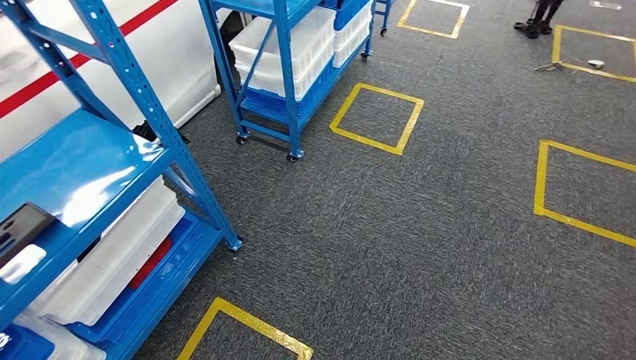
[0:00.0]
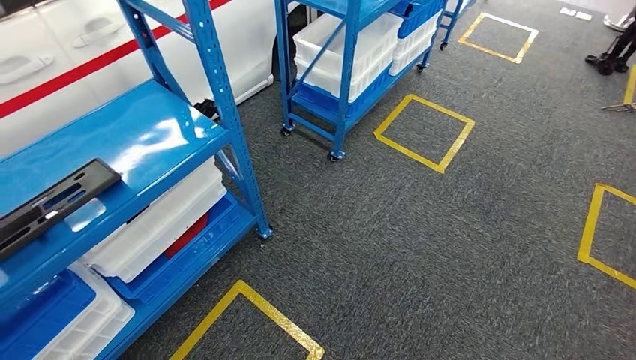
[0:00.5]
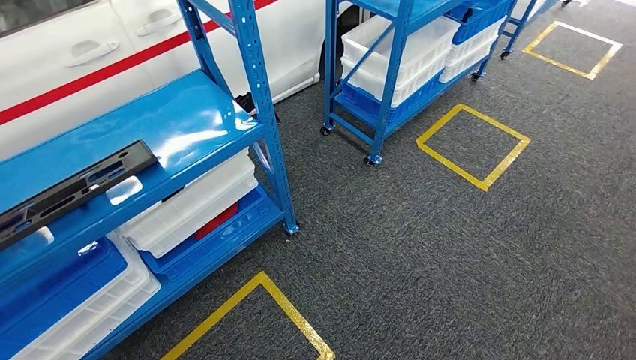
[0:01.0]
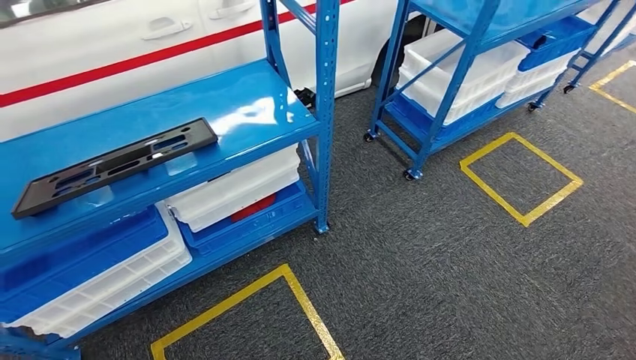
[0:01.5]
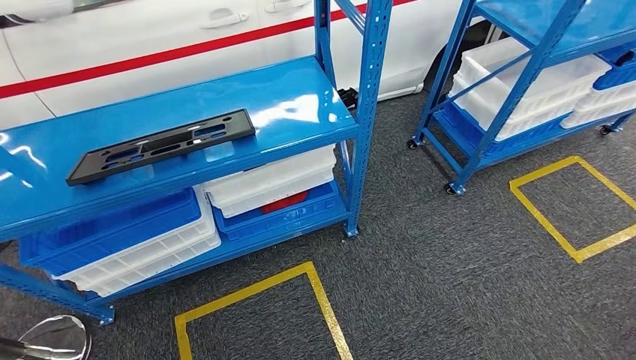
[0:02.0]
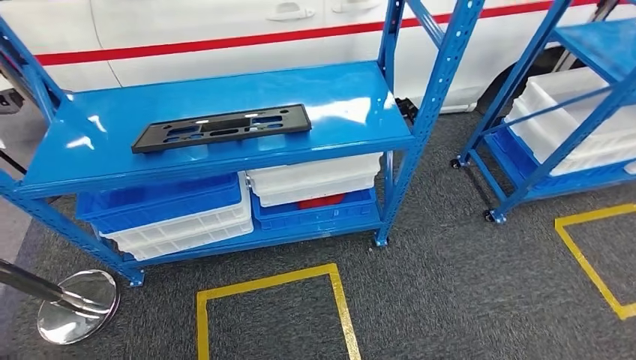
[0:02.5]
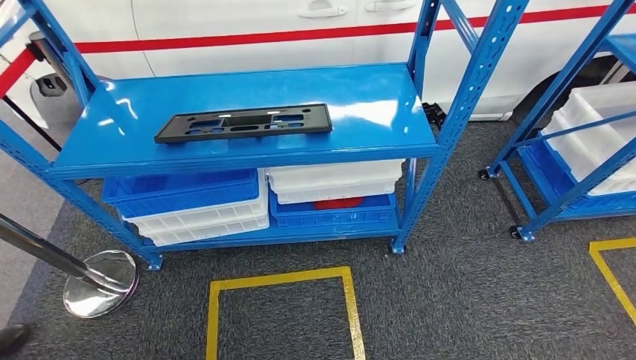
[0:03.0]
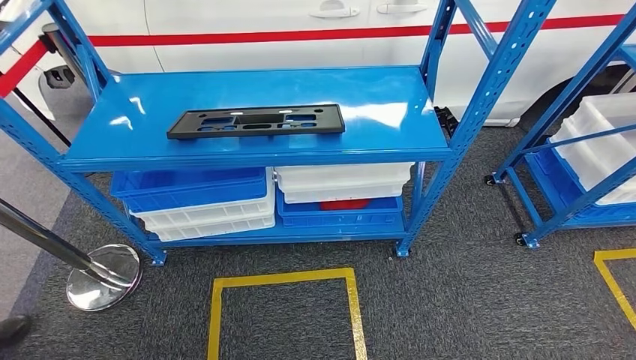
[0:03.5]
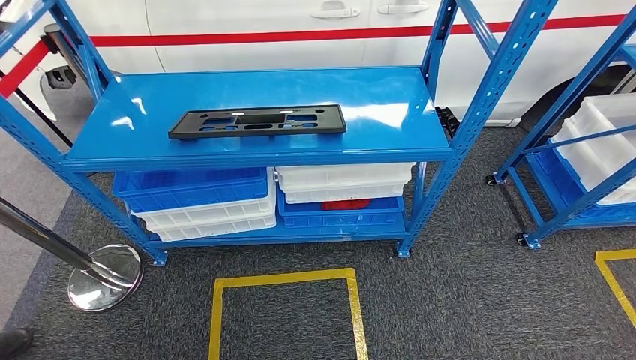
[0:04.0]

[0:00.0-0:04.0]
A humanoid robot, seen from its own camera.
Step, 0:00.0 to 0:04.0: Return to the initial position at the shelf.

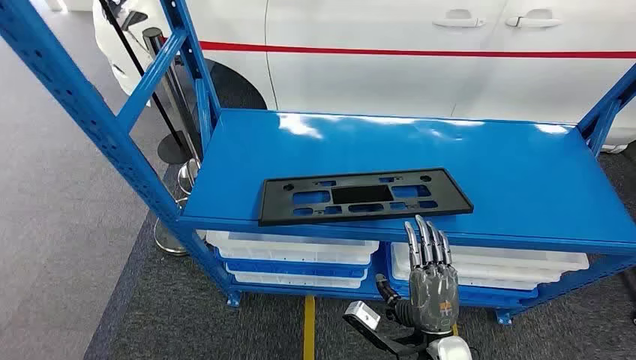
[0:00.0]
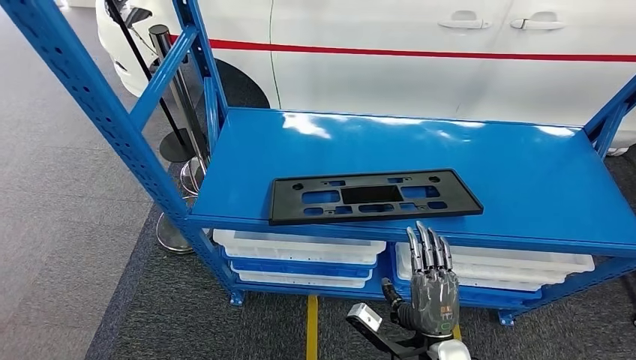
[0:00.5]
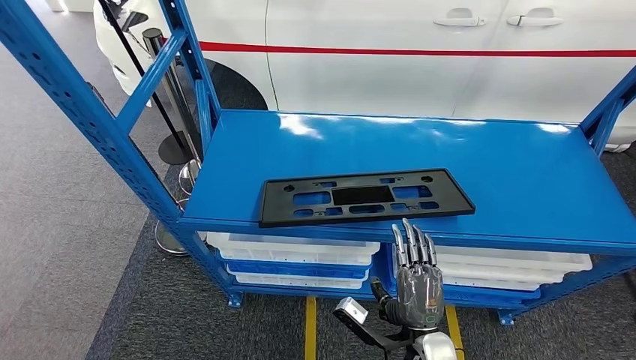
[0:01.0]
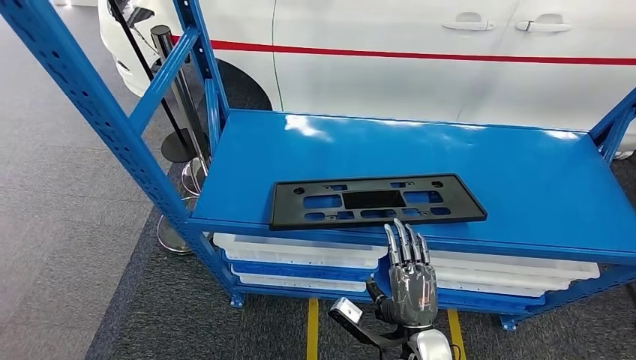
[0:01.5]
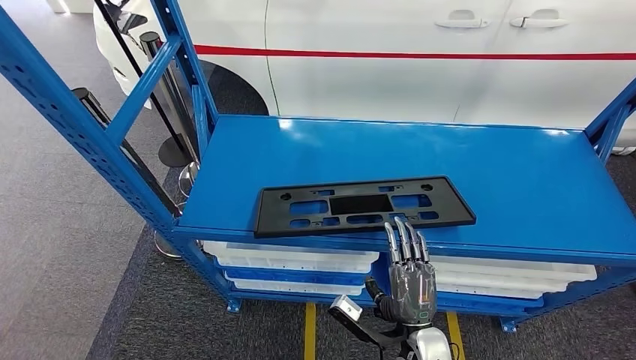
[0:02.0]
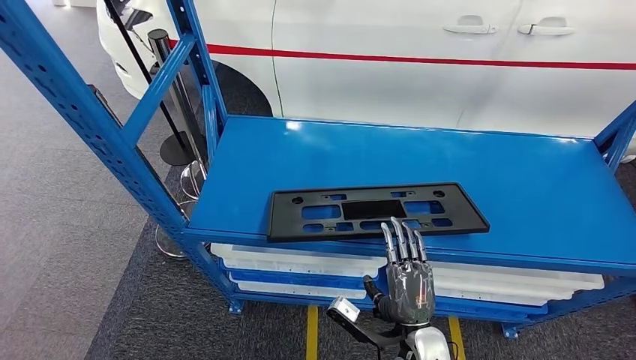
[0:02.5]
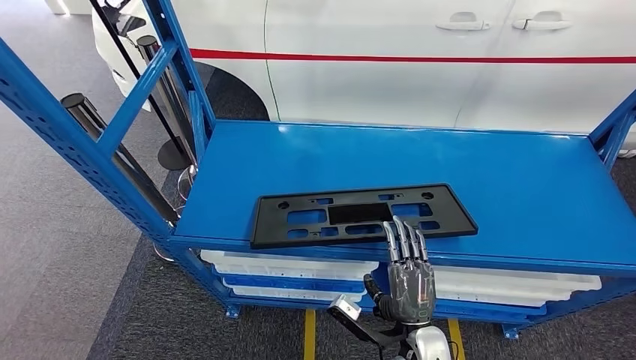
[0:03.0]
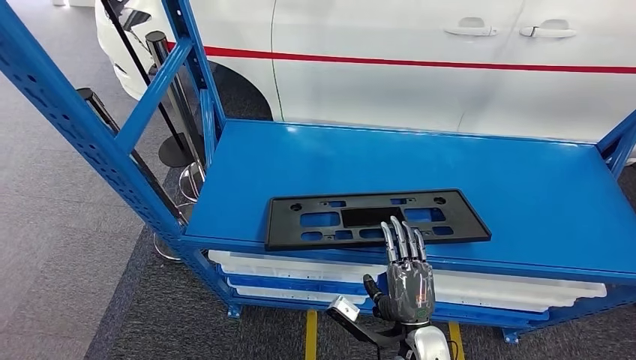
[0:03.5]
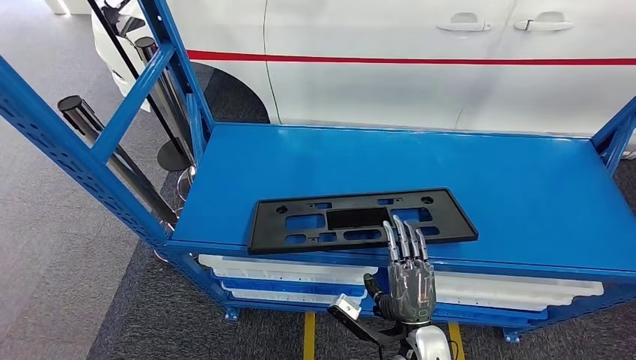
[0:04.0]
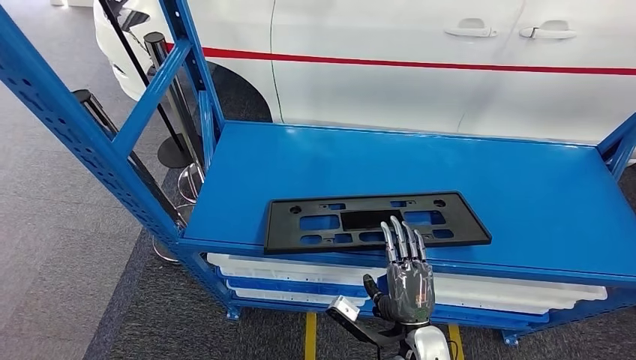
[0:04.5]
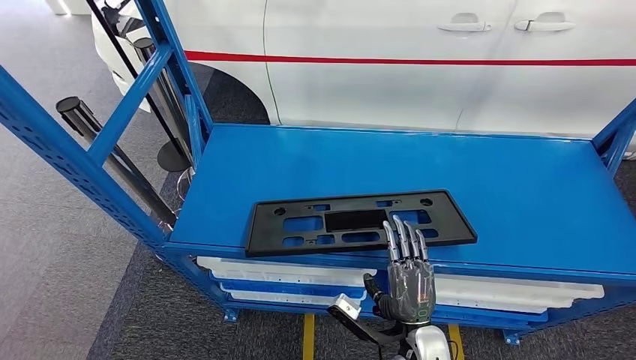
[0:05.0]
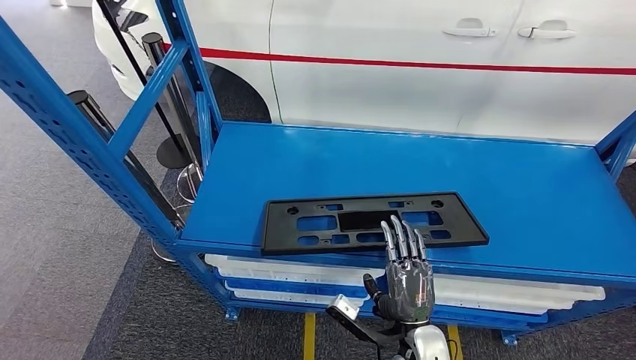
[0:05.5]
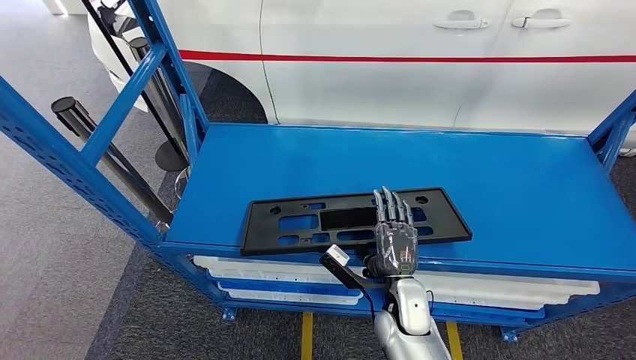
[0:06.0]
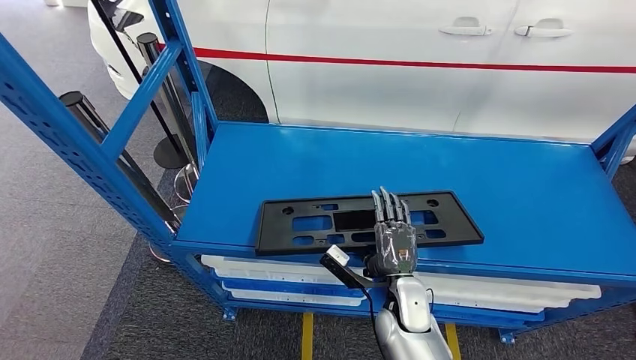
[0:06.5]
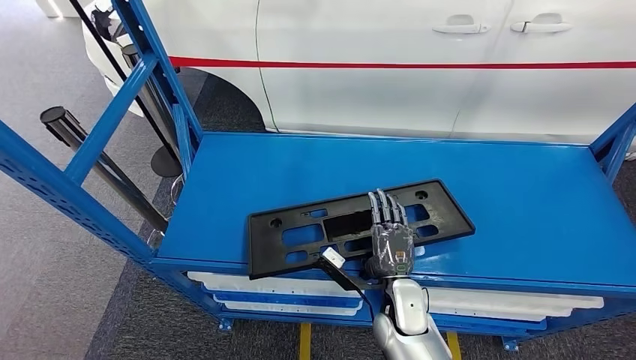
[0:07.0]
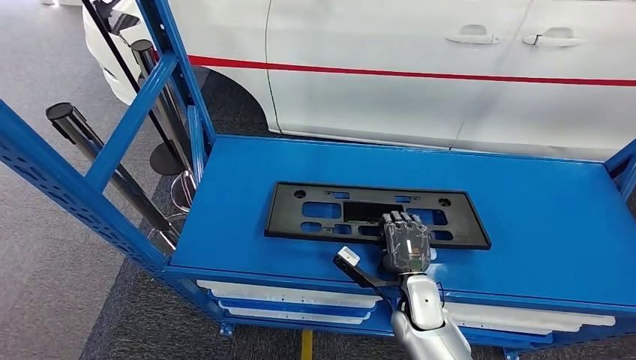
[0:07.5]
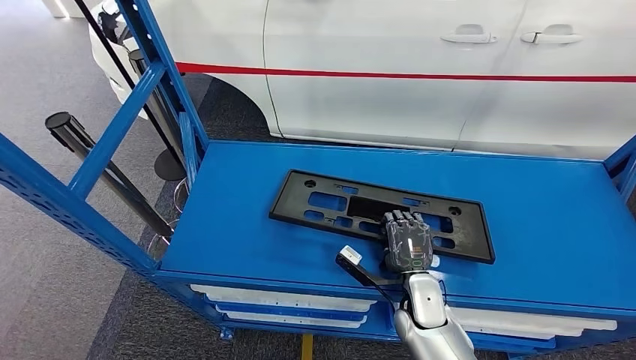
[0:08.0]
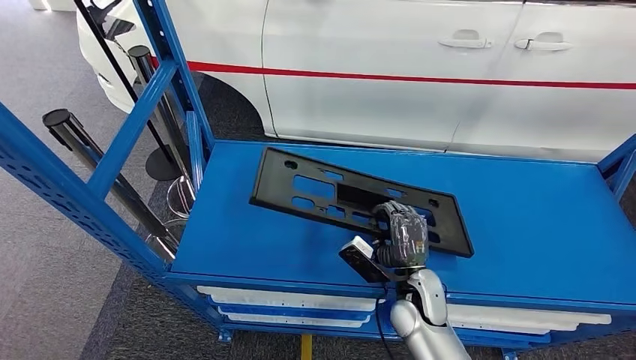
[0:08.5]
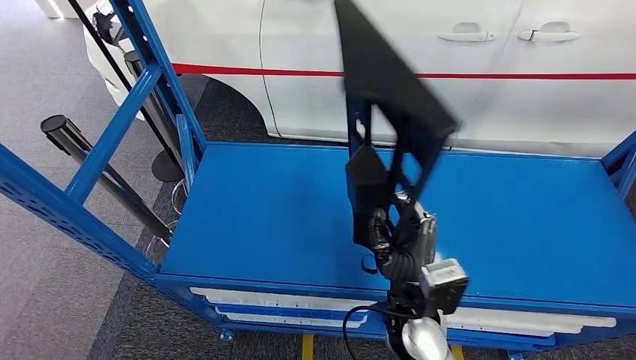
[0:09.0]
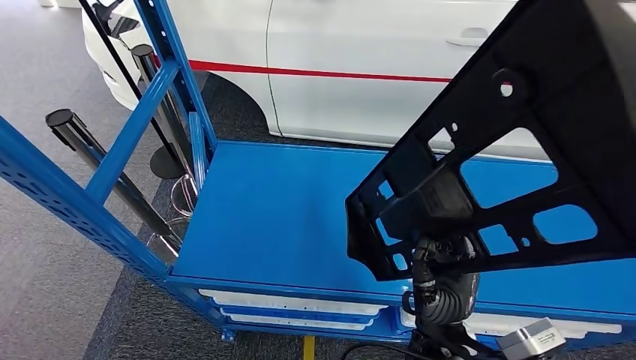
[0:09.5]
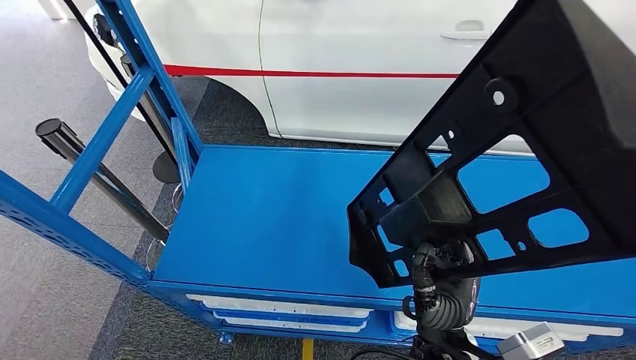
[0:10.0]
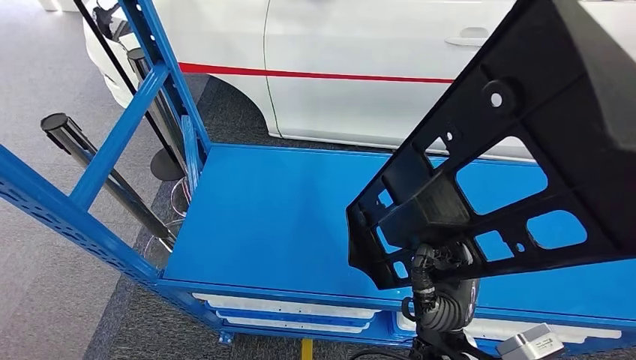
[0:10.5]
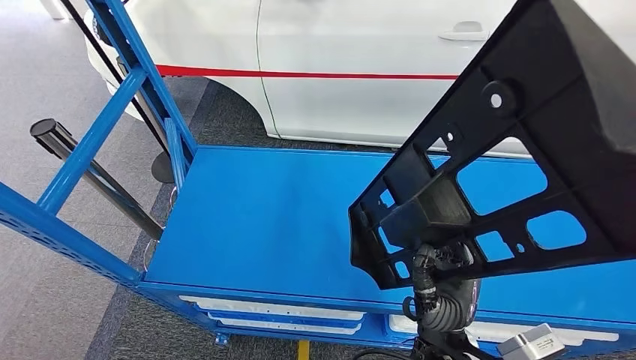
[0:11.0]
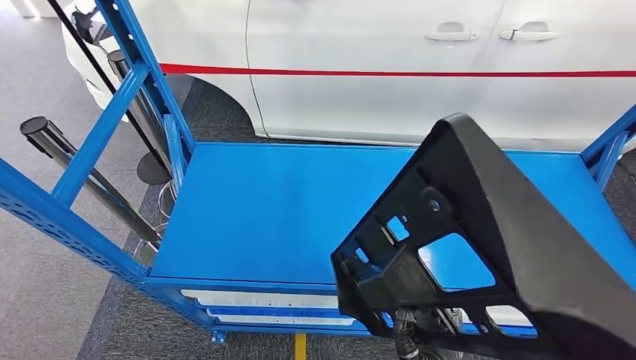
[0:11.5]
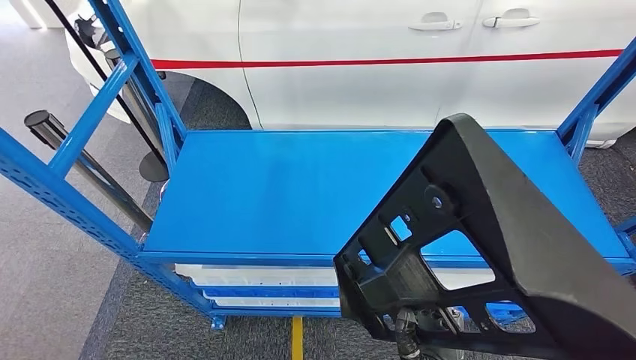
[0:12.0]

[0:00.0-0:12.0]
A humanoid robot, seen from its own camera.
Step, 0:00.0 to 0:11.0: Pick up the large material from the shelf.
0:04.0 to 0:06.0: The right hand moves forward, some 10 cm.

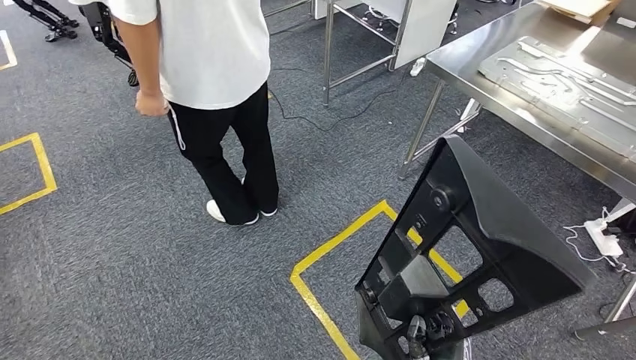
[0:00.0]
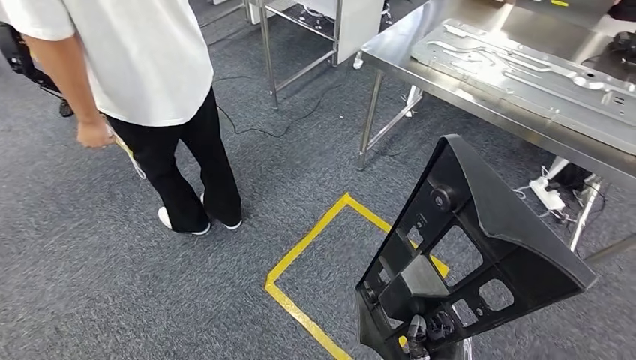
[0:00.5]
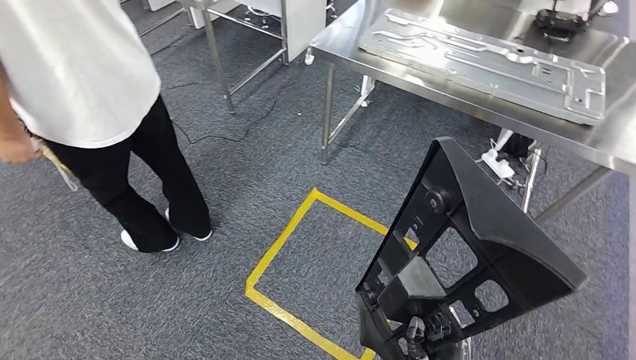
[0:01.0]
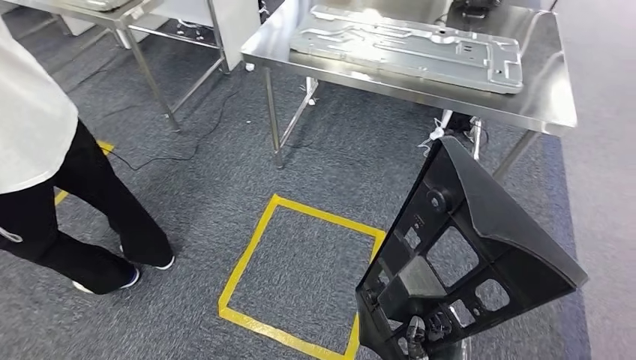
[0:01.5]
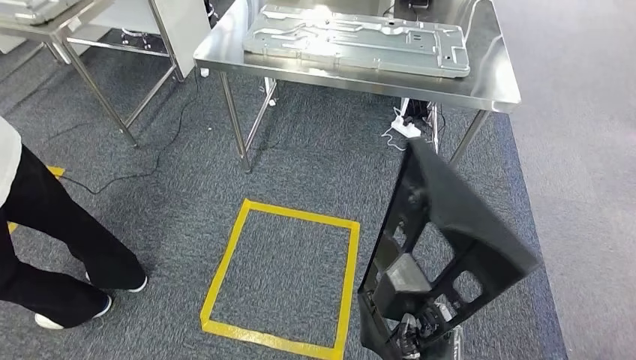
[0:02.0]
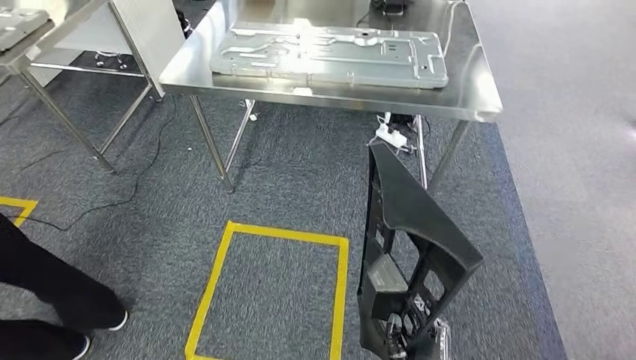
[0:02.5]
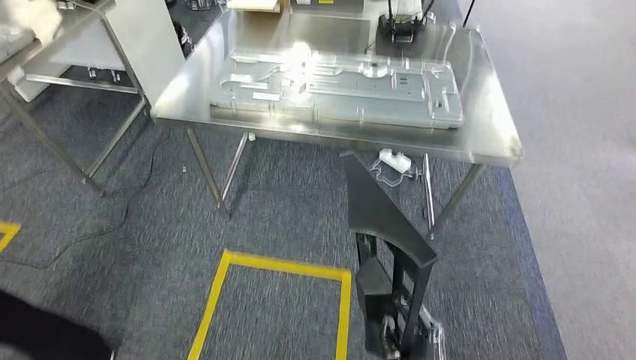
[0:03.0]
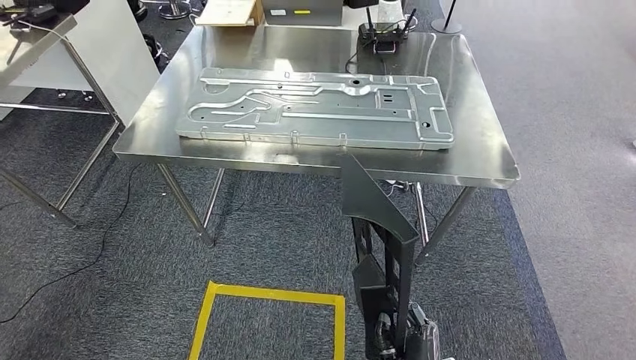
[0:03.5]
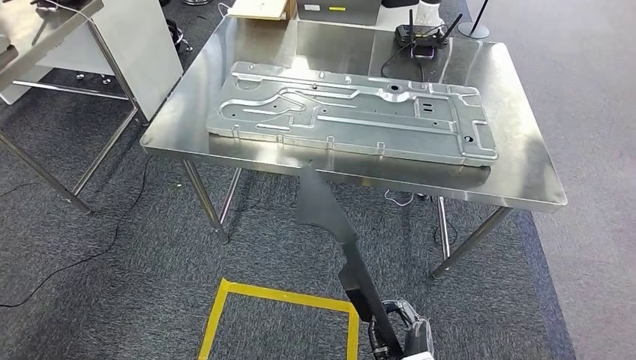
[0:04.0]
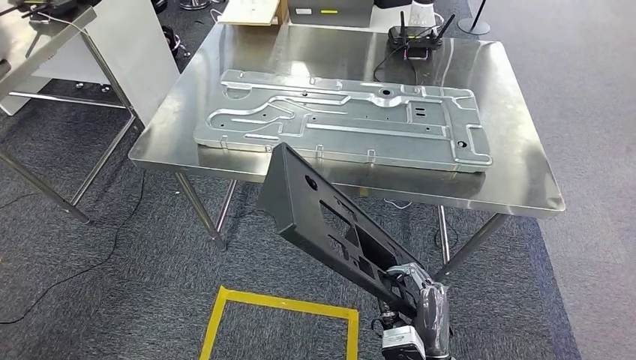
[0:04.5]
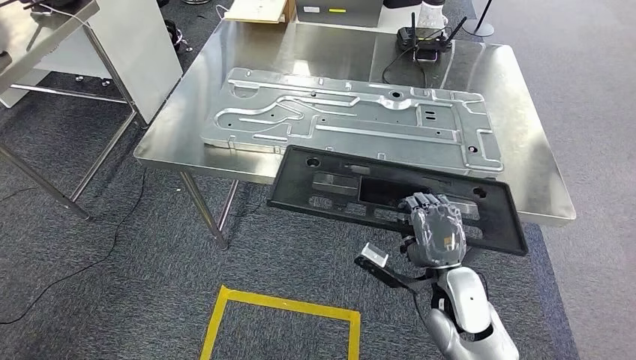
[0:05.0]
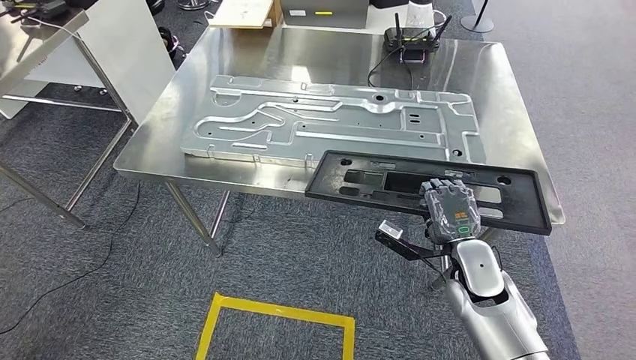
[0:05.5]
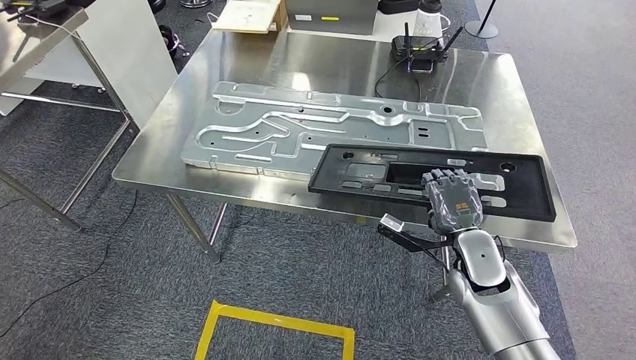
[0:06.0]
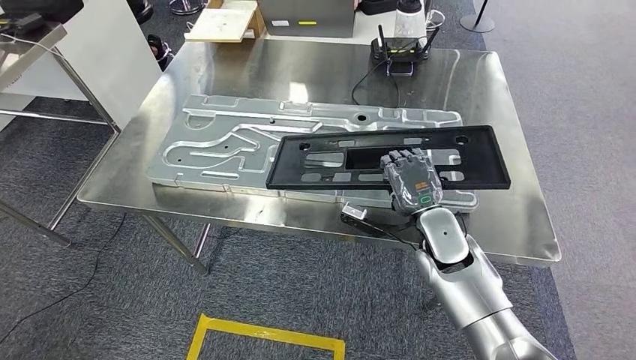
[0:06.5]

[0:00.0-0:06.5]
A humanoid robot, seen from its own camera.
Step, 0:00.0 to 0:04.5: Move the large material to the workbench.
